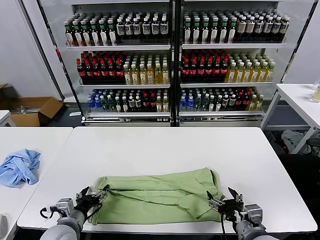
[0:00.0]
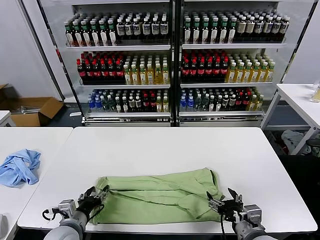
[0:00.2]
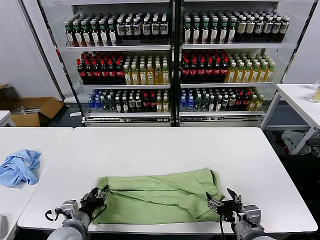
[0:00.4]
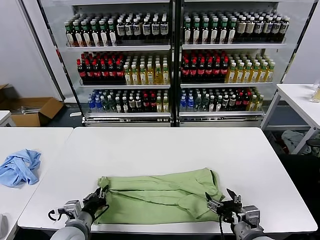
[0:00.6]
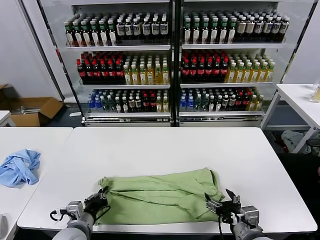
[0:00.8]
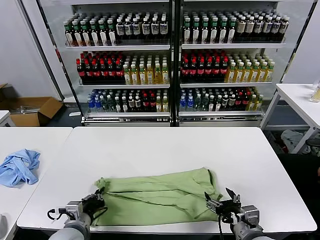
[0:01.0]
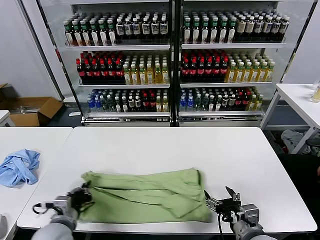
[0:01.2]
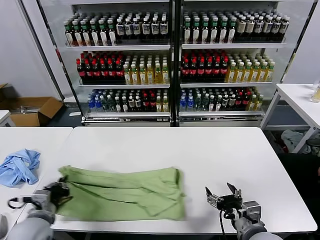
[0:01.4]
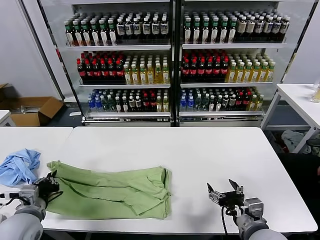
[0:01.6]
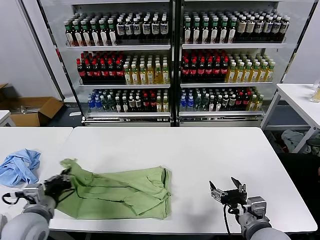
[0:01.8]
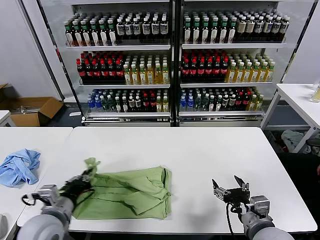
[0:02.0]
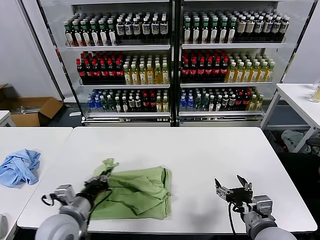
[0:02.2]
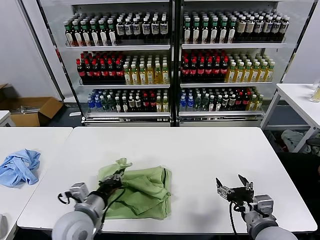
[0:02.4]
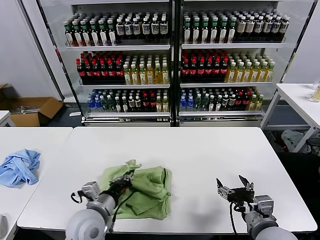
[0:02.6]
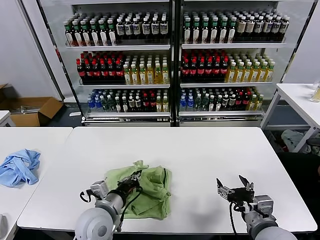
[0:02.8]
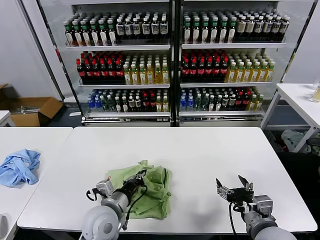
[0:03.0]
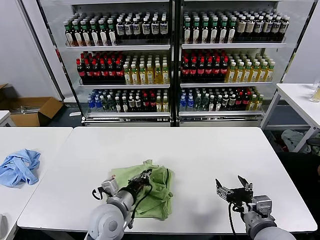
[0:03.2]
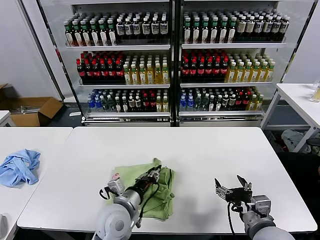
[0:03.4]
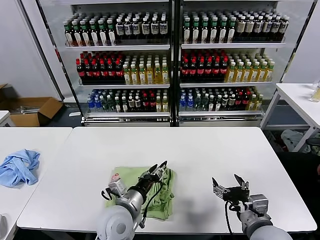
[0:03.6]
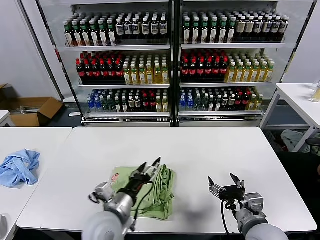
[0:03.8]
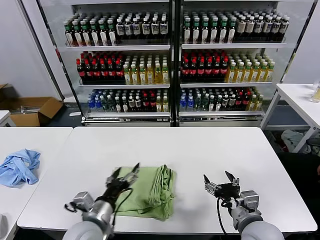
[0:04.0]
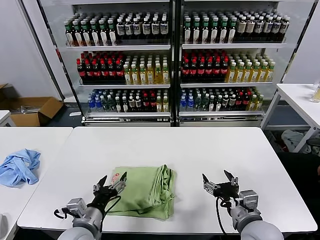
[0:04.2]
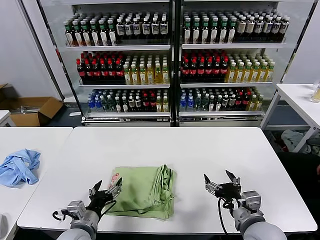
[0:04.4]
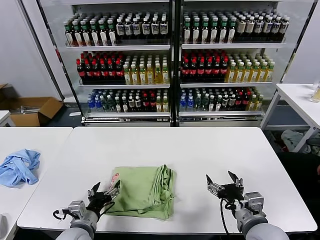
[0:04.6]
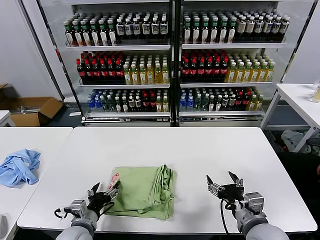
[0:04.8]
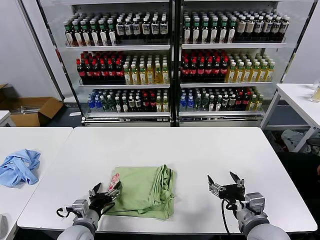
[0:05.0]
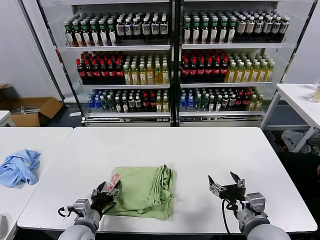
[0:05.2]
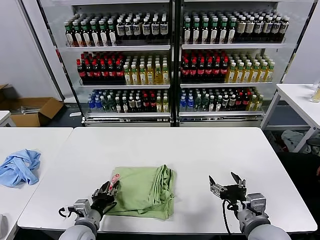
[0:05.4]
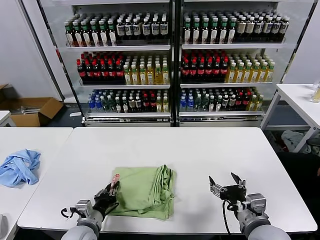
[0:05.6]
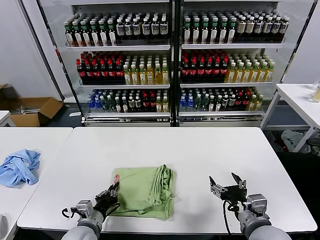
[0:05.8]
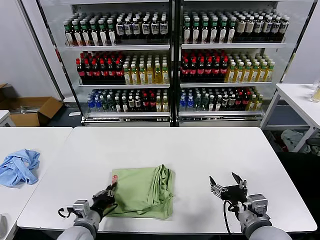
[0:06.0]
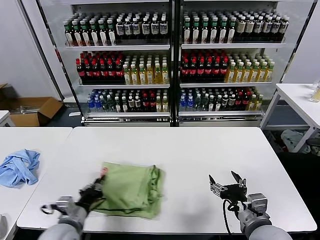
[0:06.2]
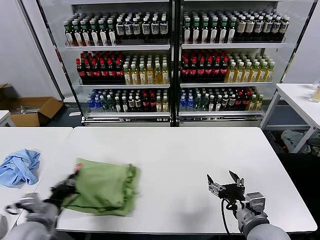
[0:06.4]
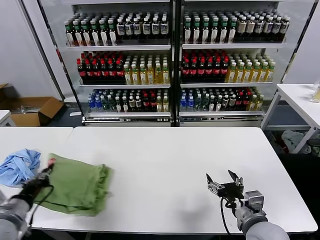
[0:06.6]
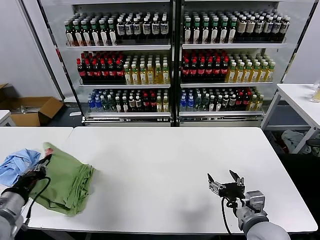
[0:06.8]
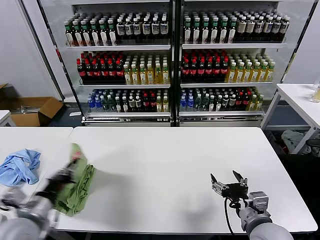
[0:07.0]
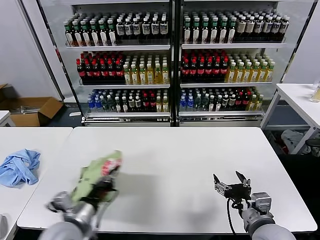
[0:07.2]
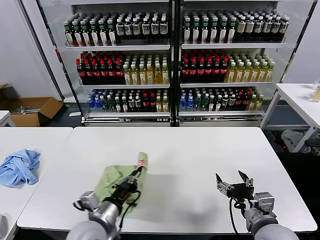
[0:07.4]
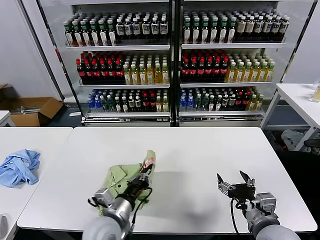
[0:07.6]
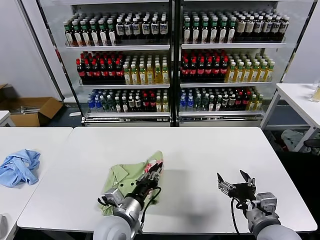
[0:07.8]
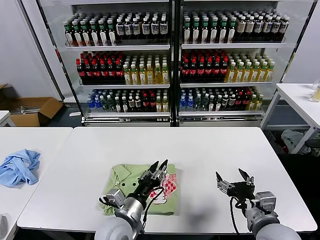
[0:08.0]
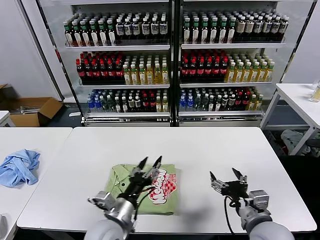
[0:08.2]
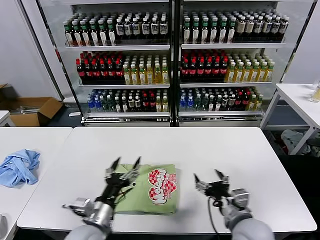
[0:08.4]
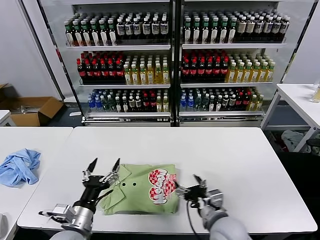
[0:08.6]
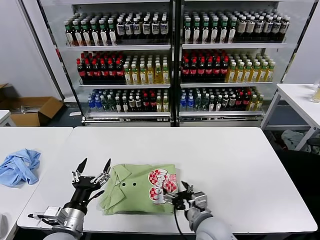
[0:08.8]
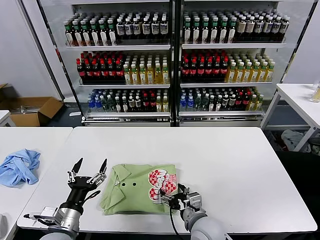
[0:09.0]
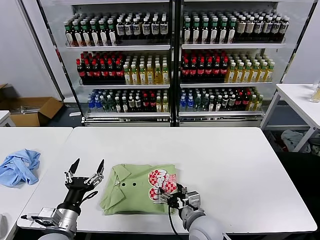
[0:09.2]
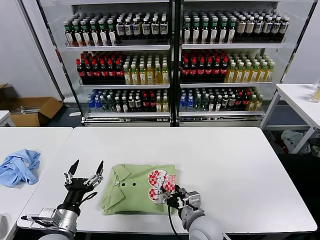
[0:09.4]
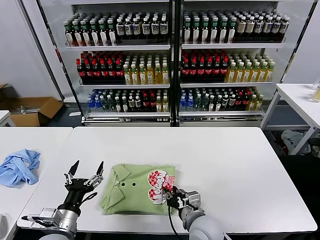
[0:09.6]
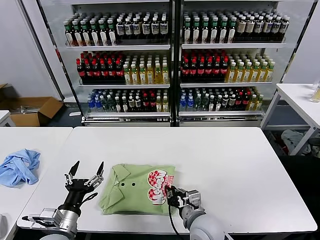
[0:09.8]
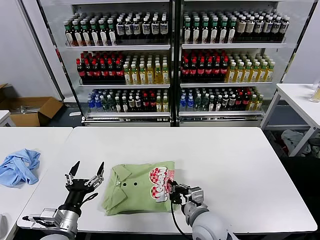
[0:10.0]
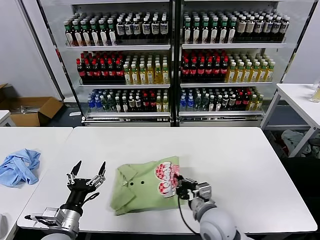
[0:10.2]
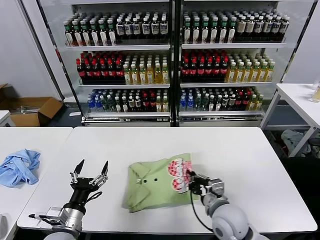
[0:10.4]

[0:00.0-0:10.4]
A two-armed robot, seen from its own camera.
Task of the whole recording: fold and organize the clothes.
Step, 0:00.0 to 0:00.8: use the left gripper to clamp the left edge of the fabric.
Step, 0:01.0 to 0:03.6: use the left gripper to drag the left edge of the fabric to the left and folds it over the right edge.
Step, 0:03.8 to 0:08.0: Flip the folded clothes over with left gripper.
0:00.0 to 0:01.4: The left gripper changes place by roughly 5 cm, and closes.
0:01.4 to 0:03.0: The left gripper shifts some 20 cm to the right.
0:03.0 to 0:04.4: The left gripper shifts roughly 5 cm to the left, and opens.
0:04.4 to 0:06.0: The left gripper closes its fingers.
0:06.0 to 0:07.4: The left gripper heads upward, covering approximately 10 cm, and moves approximately 15 cm to the left and comes back.
0:07.4 to 0:09.0: The right gripper moves to the left and downward, about 15 cm, while the left gripper goes approximately 5 cm to the left, and opens its fingers.
0:09.0 to 0:10.4: The right gripper shifts by about 5 cm, and closes.

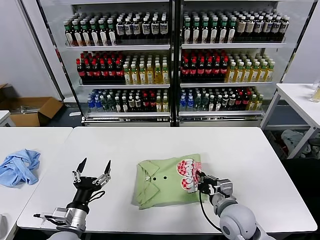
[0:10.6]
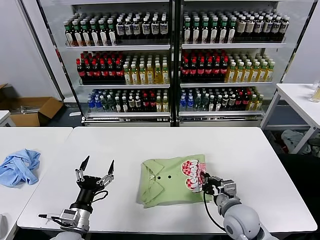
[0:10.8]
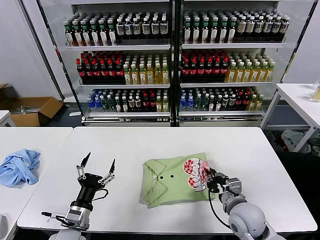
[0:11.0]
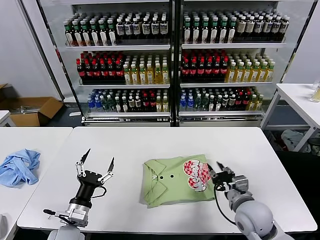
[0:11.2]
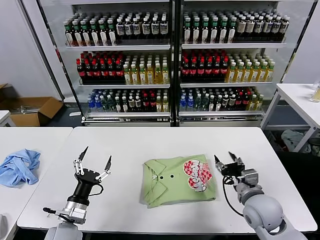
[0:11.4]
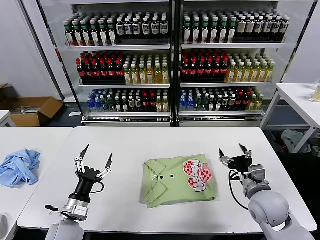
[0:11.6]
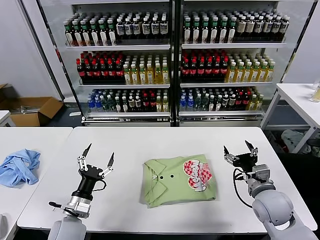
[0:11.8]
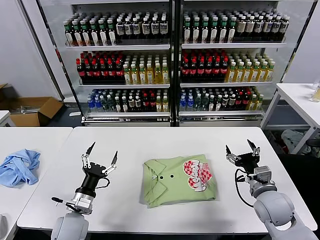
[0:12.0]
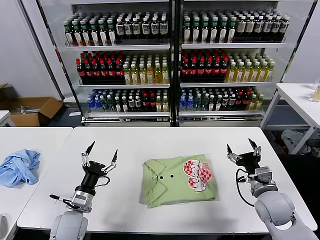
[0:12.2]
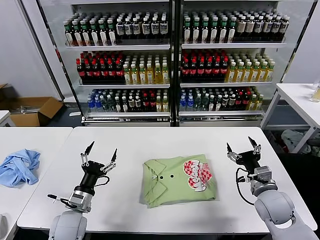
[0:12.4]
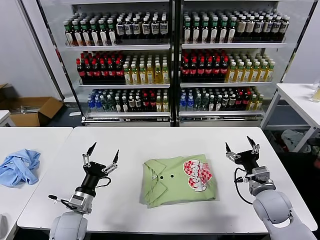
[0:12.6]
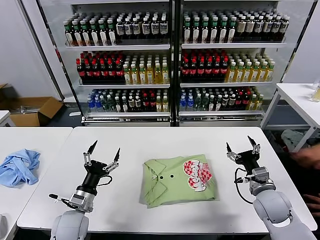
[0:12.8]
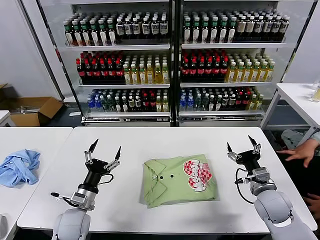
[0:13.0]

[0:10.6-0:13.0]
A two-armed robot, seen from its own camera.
Task of the whole recording: fold and organize the clothes.
0:10.6 to 0:11.8: The right gripper shifts about 10 cm to the right, and opens. Meanwhile the left gripper changes place by roughly 5 cm.
0:11.8 to 0:13.0: The grippers move only a little.
